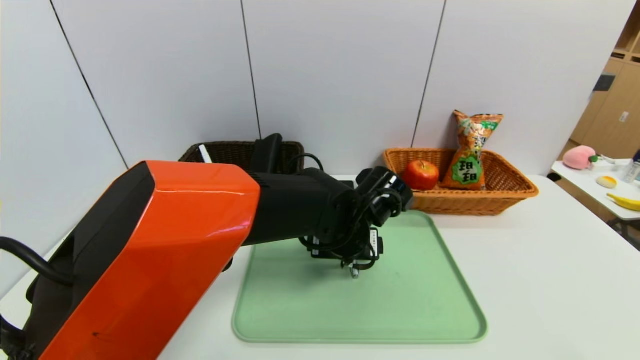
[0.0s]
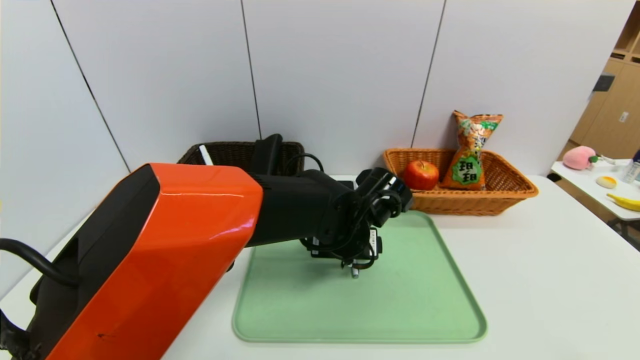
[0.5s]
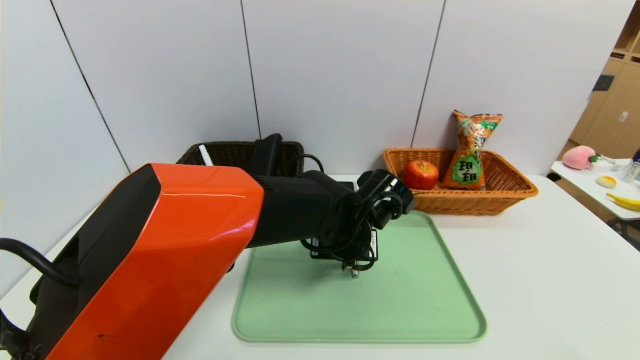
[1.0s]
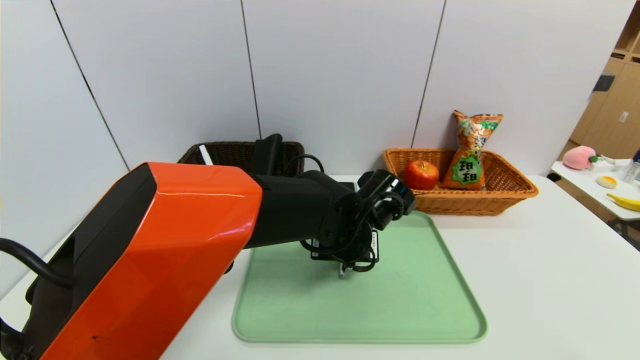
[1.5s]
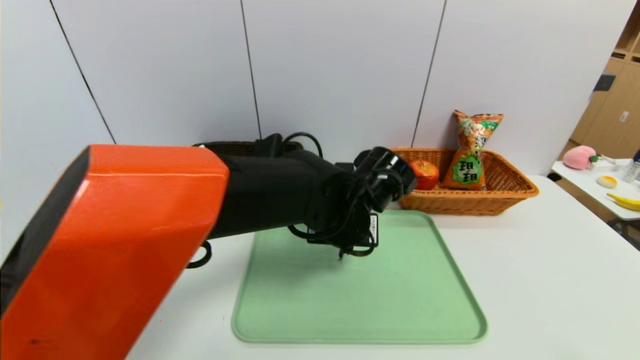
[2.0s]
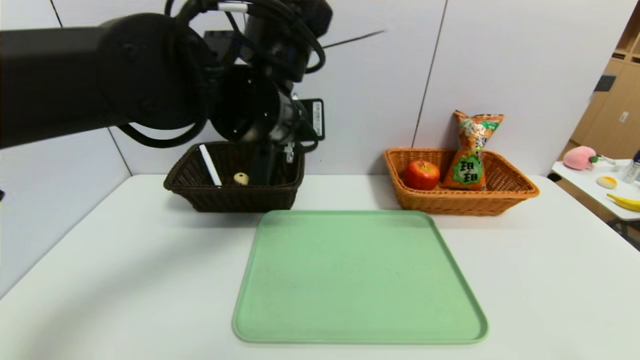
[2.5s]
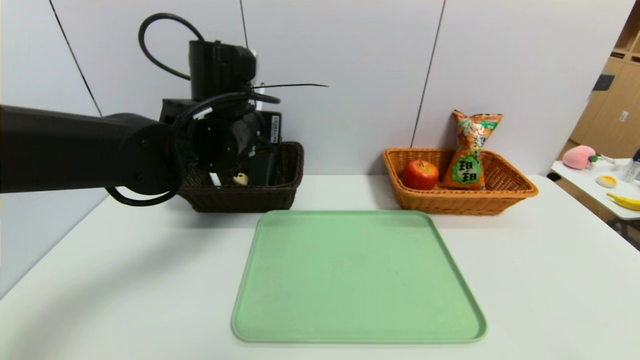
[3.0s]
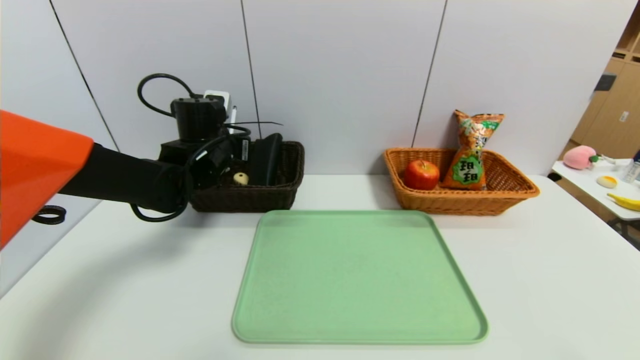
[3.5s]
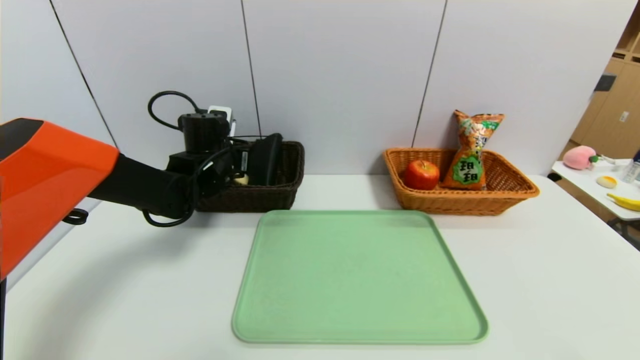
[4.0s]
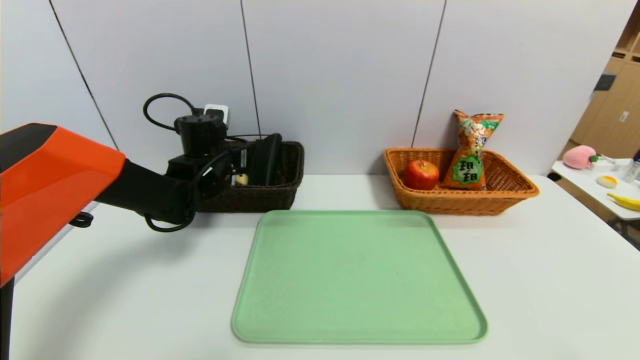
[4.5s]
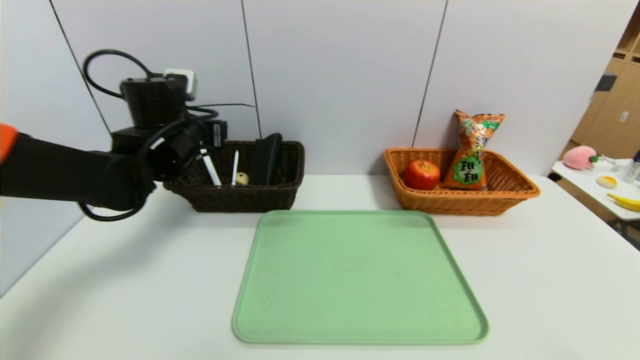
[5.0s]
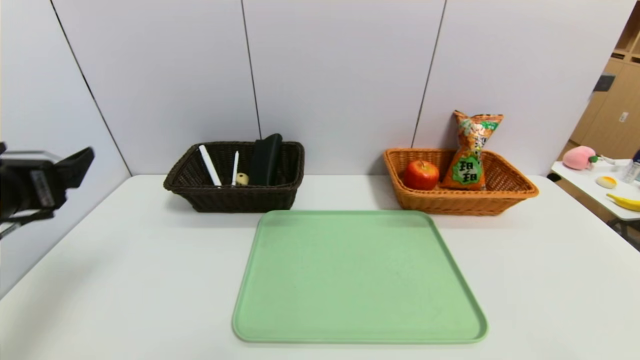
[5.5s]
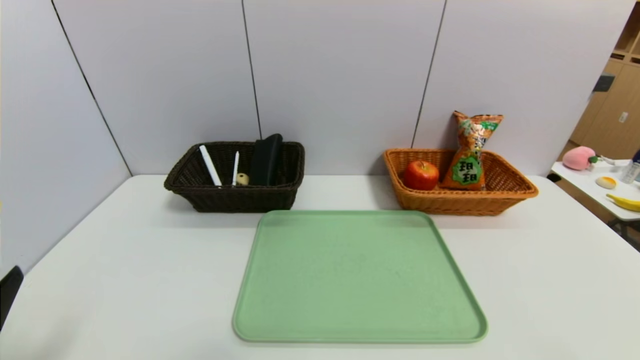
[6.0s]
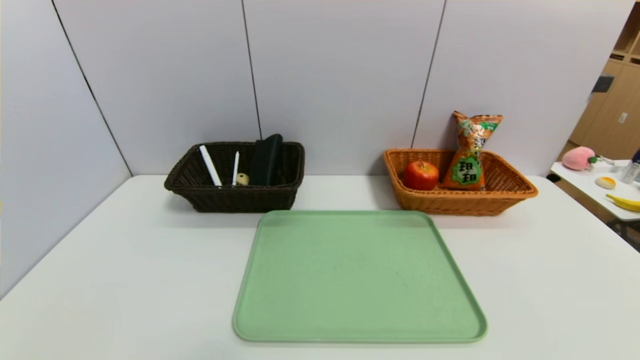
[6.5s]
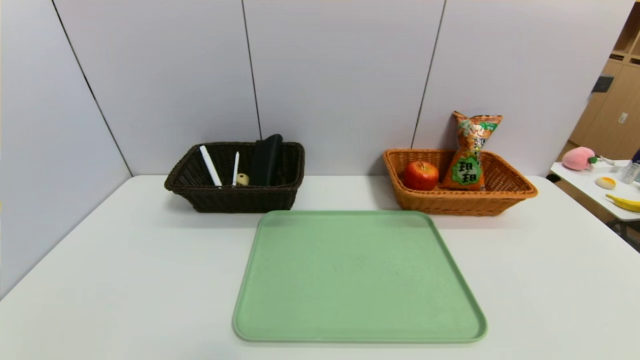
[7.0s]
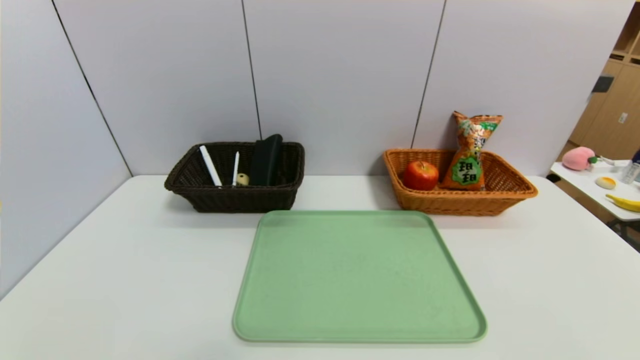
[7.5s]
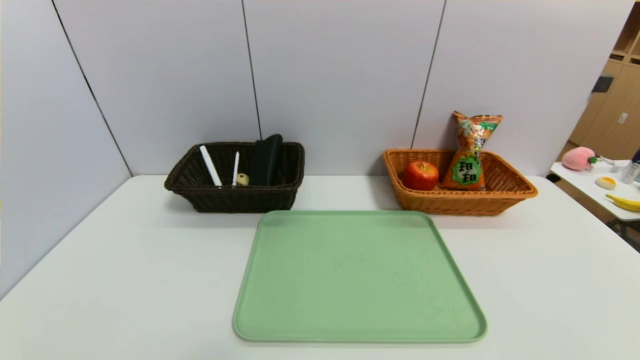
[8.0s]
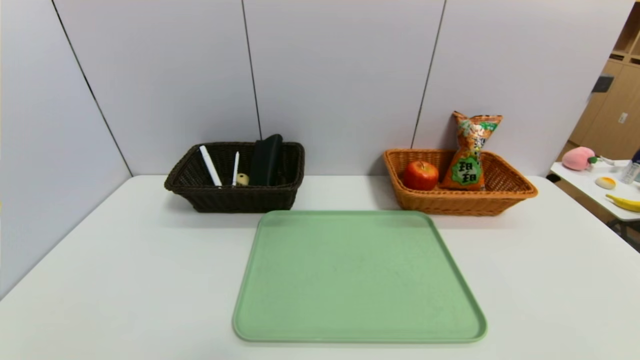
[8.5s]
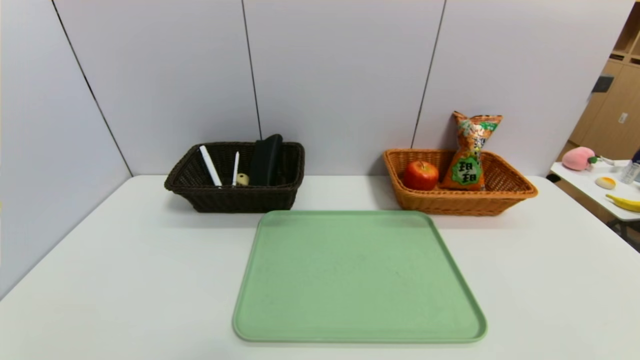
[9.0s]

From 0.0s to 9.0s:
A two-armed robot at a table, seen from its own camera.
Task of the whole recording: place the food in the right basket with the right gripper, and place the non food items in the left basket with the left gripper.
Step, from 0.0s to 4.0s: Grasp the blue marker and put it in the left basket.
From 0.0s to 2.0s: The left gripper closes up.
From 2.0s to 4.5s: The left gripper shifts about 25 cm to the left and forward, and opens its fingers.
From 4.5s to 7.0s: The left gripper heads backward, covering about 40 cm.
